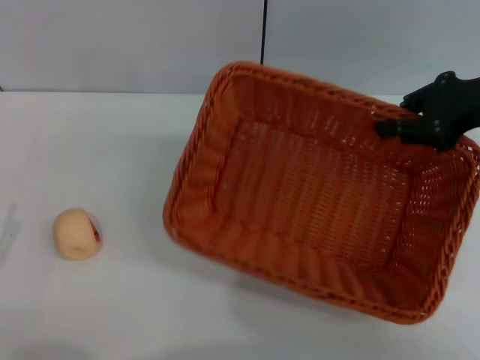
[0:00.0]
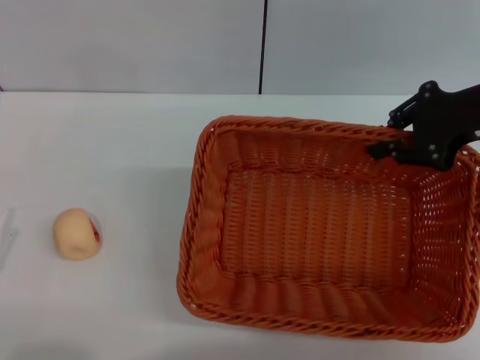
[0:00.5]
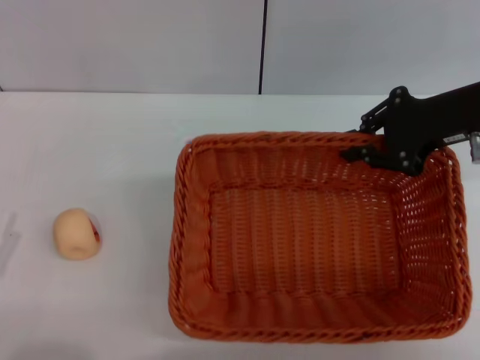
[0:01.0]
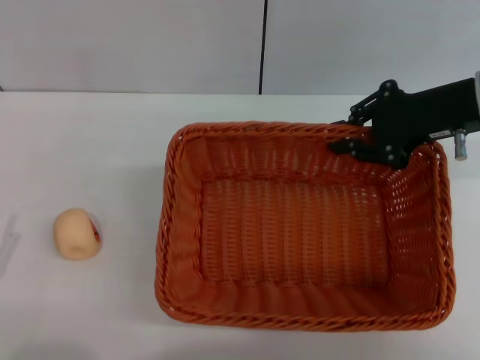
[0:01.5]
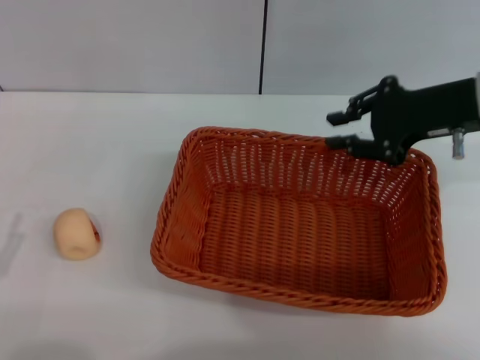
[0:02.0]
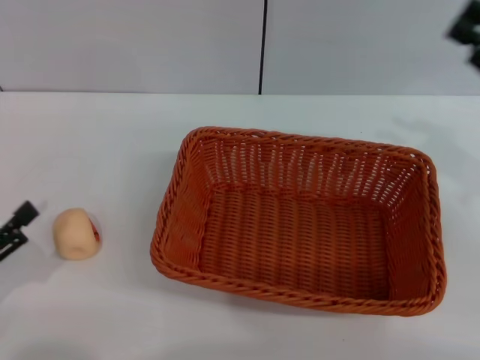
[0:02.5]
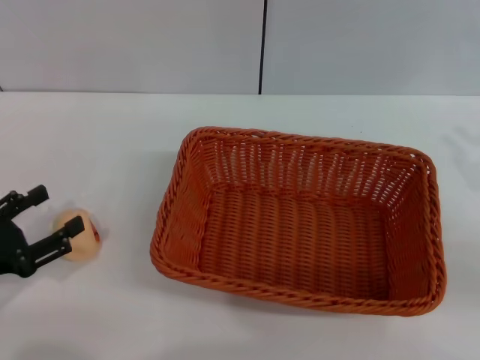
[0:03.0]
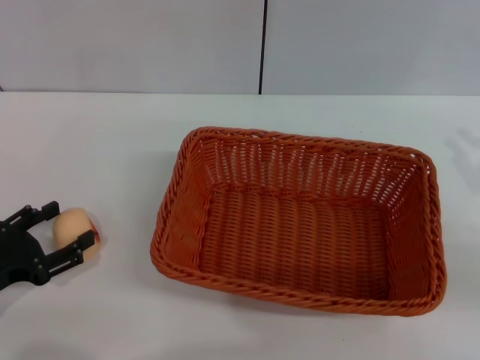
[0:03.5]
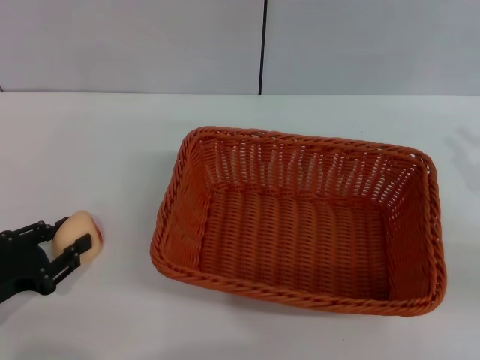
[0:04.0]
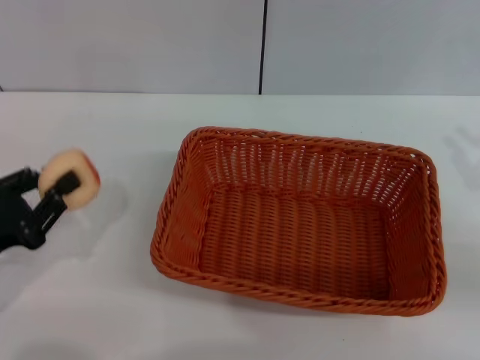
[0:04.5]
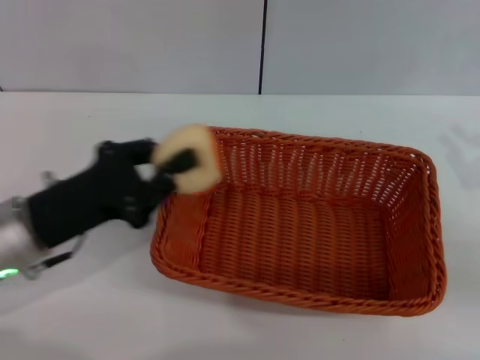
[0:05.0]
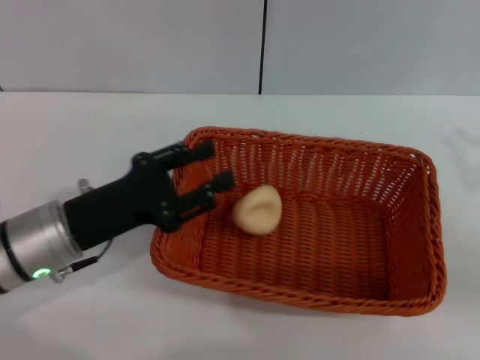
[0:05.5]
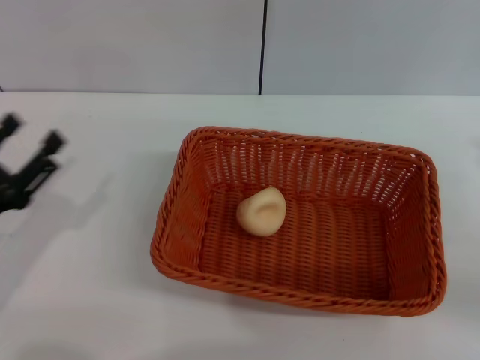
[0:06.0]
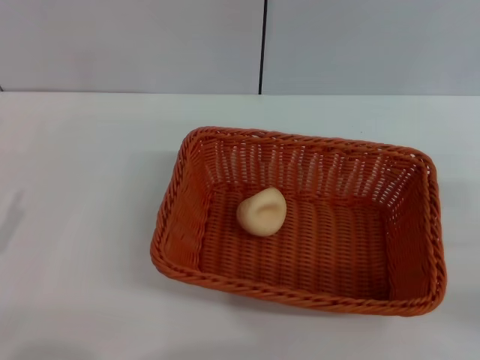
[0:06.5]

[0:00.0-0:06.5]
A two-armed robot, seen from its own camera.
Step, 0:00.0 to 0:02.0: Move the basket to the center of view with the right gripper.
Step, 0:02.5 to 0:04.5: Pick up the egg yolk pastry with the left gripper.
Step, 0:05.0 to 0:05.5: Place the egg yolk pastry into the basket with the left gripper.
0:02.0 to 0:04.5: The left gripper is displaced forward by approximately 10 cm, and closes its fingers. Meanwhile the right gripper moves backward and to the right, some 15 cm.
0:04.5 to 0:06.5: The right gripper opens up. Meanwhile the left gripper moves about 10 cm to the right and comes back, and opens.
